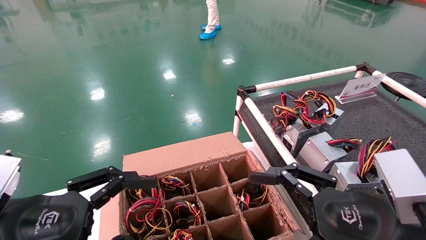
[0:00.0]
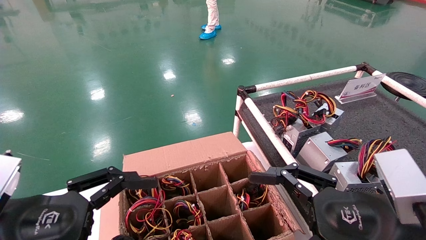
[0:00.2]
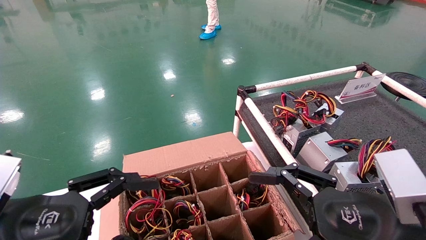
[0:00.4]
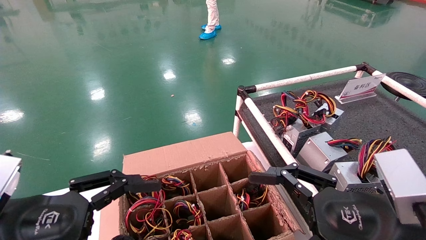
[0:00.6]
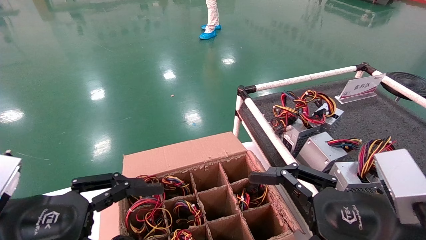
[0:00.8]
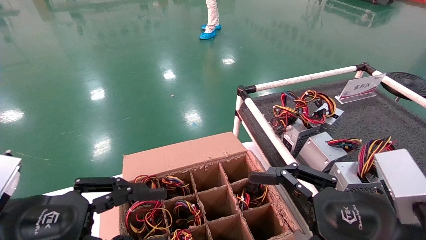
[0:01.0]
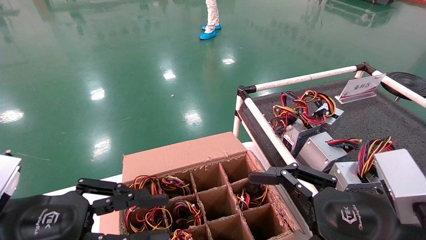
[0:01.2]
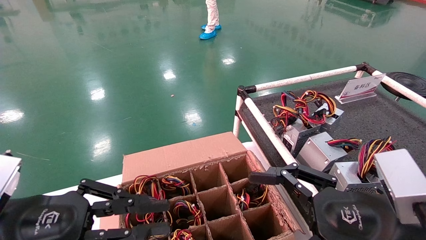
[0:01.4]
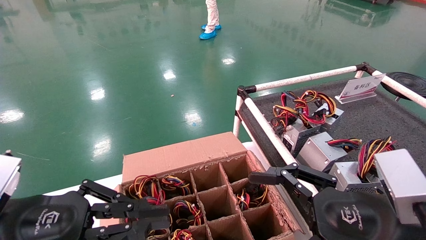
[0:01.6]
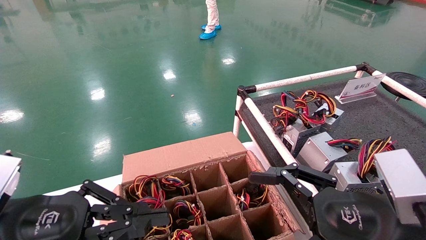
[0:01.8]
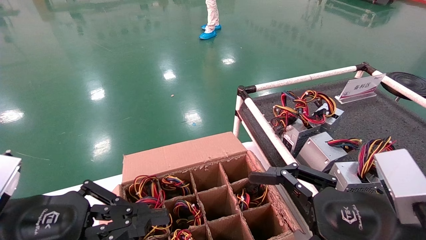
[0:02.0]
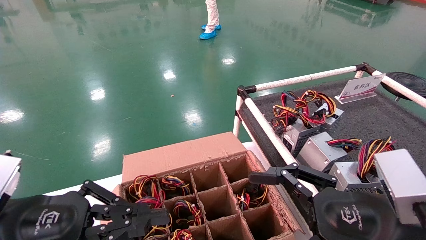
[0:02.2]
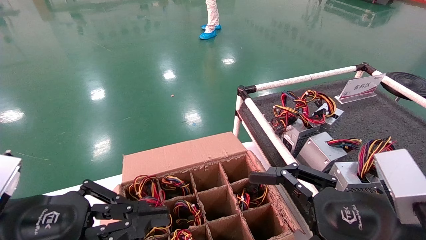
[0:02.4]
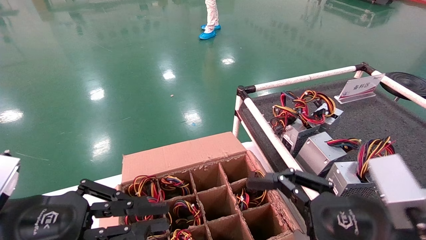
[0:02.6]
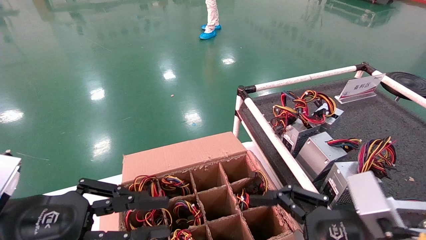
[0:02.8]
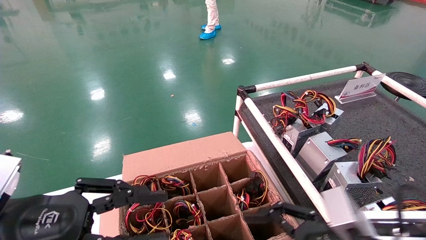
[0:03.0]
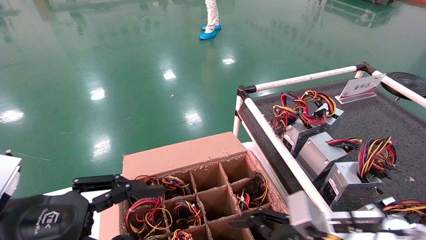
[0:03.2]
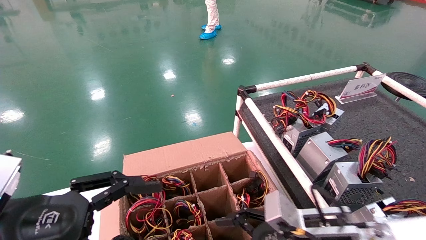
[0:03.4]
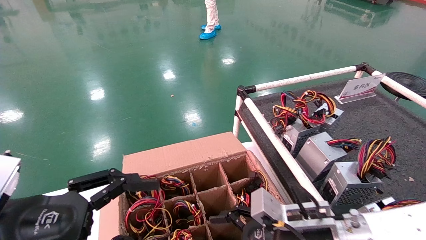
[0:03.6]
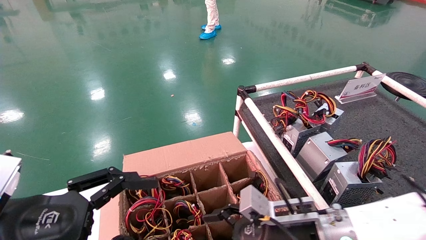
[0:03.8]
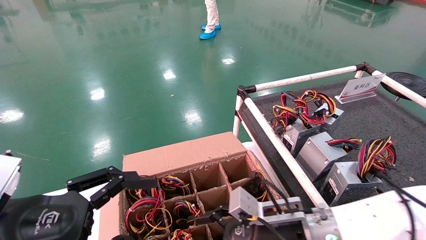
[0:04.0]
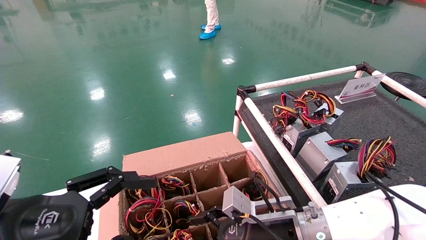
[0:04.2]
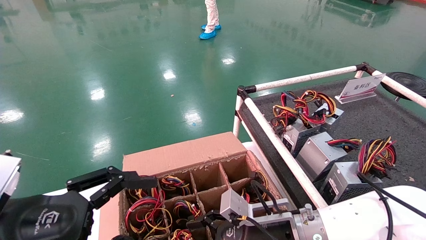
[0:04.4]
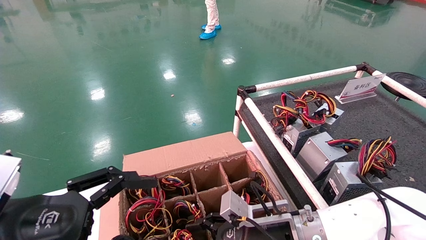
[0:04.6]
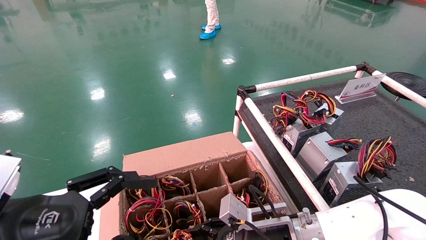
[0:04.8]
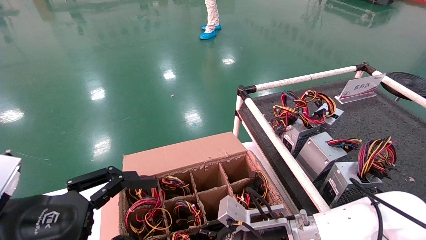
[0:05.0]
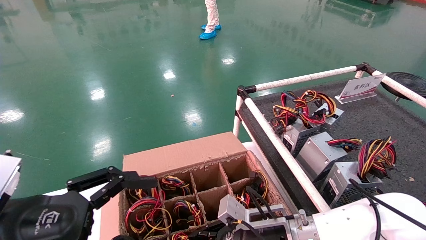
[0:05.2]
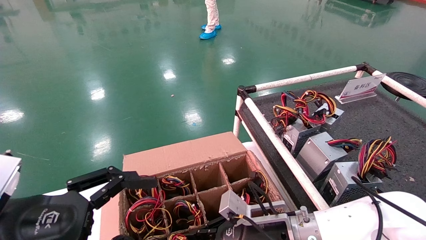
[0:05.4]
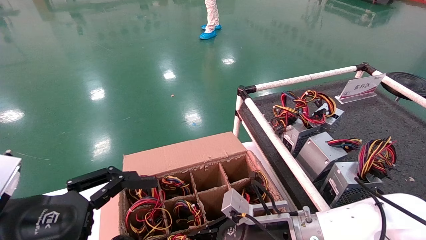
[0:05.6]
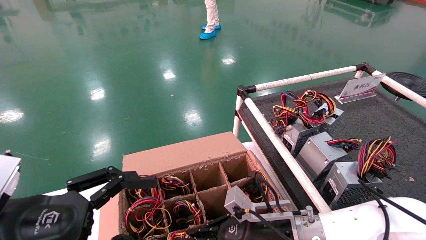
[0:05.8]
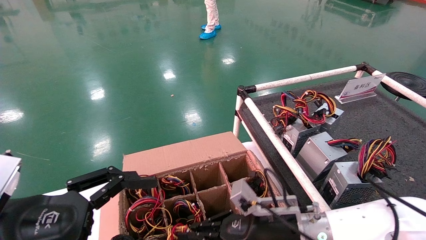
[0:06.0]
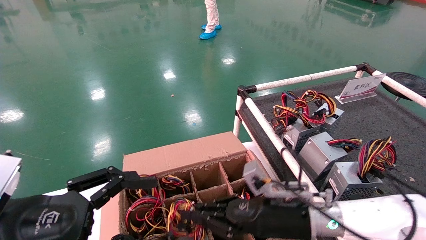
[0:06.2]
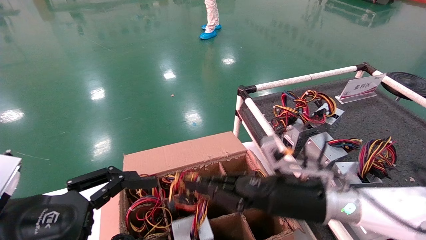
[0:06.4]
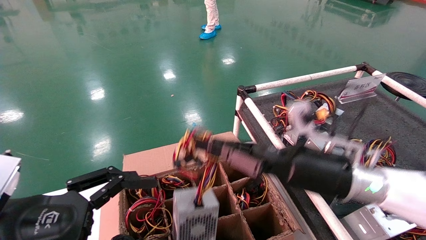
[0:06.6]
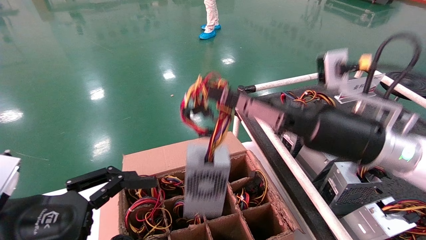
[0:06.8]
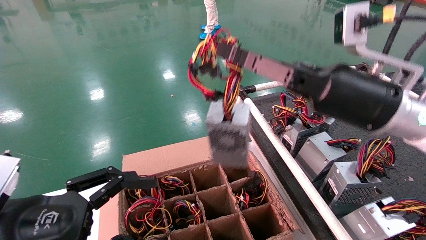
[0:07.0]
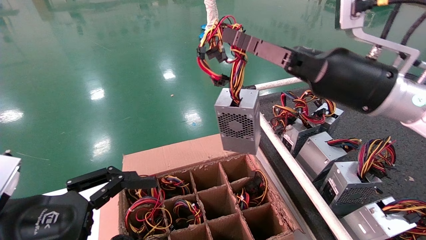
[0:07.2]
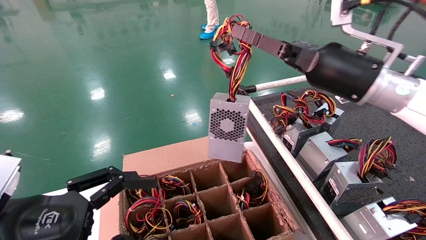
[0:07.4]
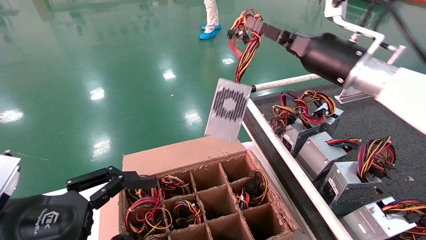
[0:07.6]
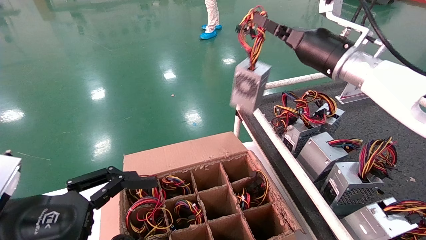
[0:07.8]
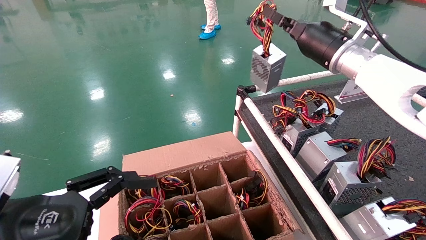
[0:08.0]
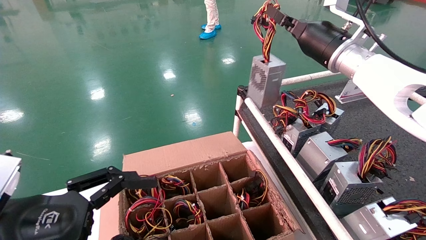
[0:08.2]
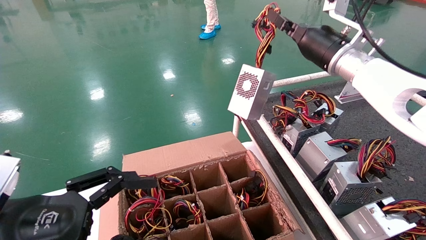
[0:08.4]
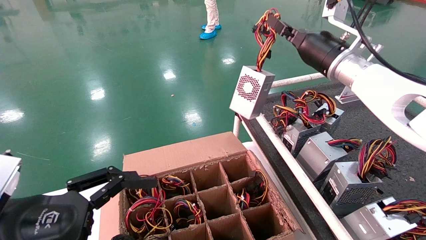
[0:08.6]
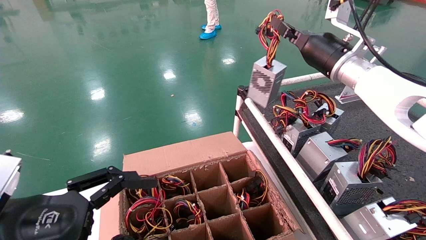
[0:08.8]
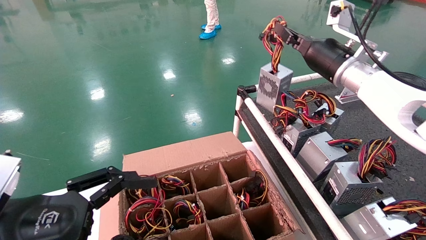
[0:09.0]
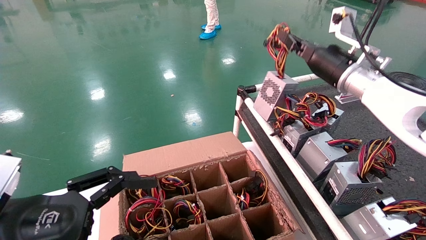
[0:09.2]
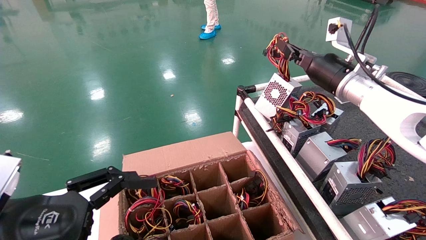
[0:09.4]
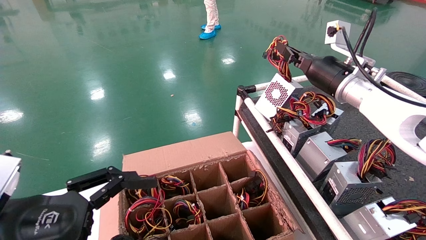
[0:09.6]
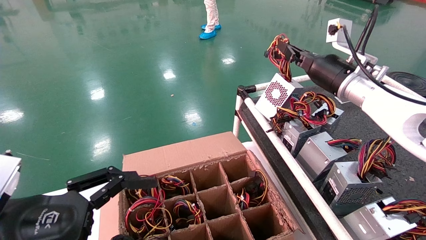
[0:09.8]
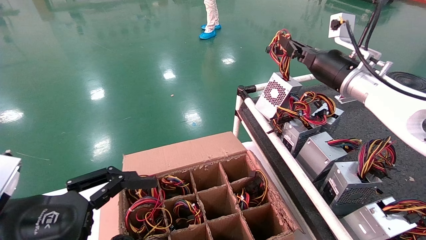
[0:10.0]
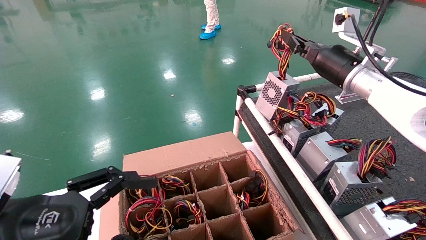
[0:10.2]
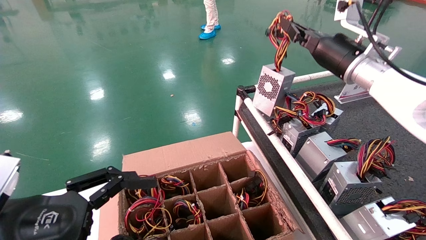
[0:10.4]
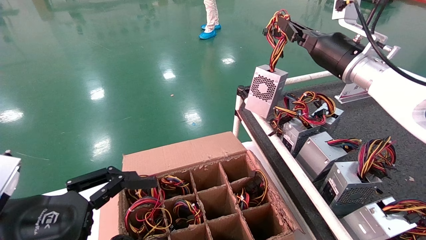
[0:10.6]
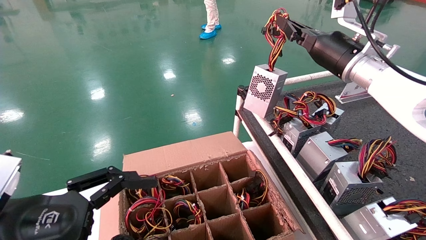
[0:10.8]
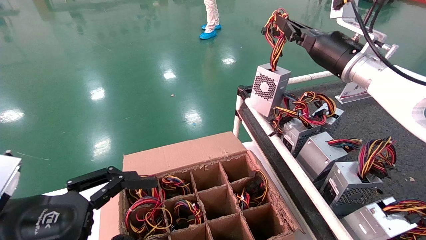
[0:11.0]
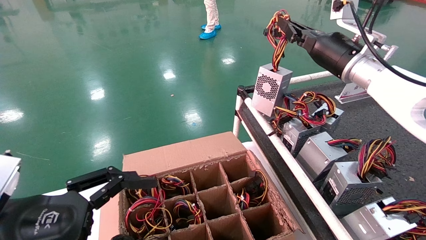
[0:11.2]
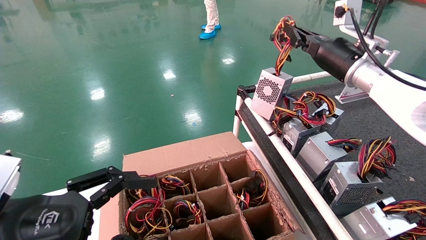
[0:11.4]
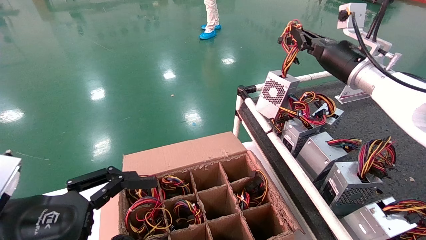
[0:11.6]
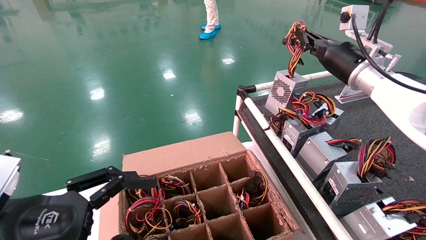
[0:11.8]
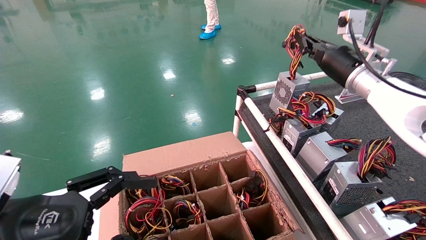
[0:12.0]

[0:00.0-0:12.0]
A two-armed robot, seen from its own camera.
Step, 0:03.2 to 0:05.8: Grab and lift the power supply from the large box.
0:00.0 to 0:01.6: The left gripper closes up.
0:01.6 to 0:03.0: The right gripper goes approximately 5 cm downward.
0:03.0 to 0:04.4: The left gripper opens its fingers, while the right gripper is displaced forward, to the left and downward by approximately 15 cm.
0:04.4 to 0:06.0: The right gripper closes up.
0:06.0 to 0:07.6: The right gripper goes roughly 30 cm upward.
0:07.6 to 0:09.0: The right gripper goes approximately 5 cm forward.
0:09.0 to 0:12.0: There are only small adjustments of the grippers.

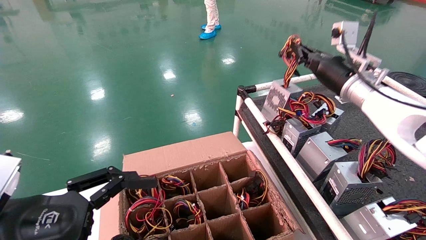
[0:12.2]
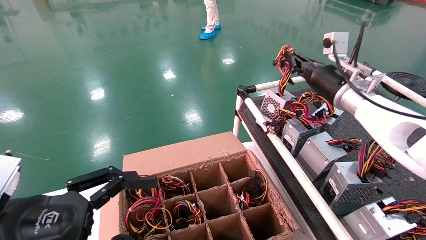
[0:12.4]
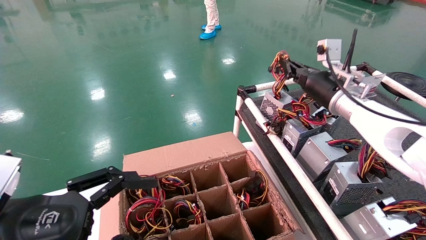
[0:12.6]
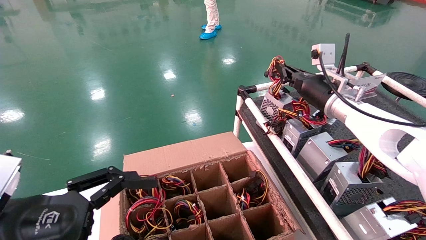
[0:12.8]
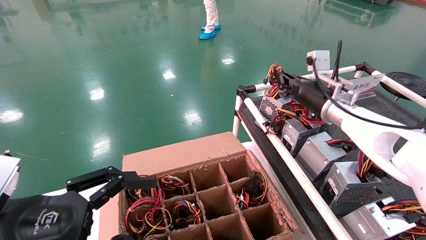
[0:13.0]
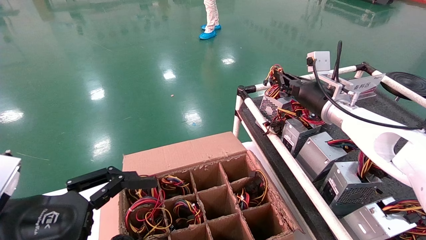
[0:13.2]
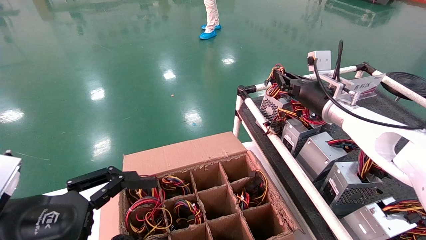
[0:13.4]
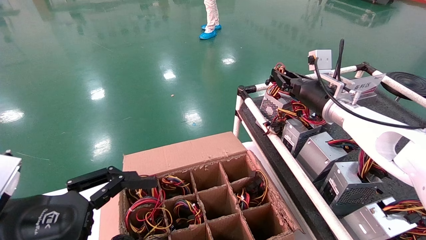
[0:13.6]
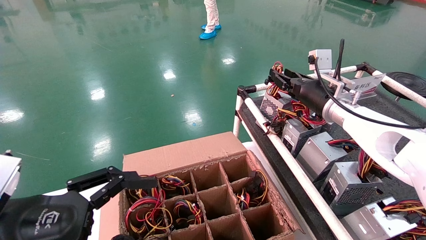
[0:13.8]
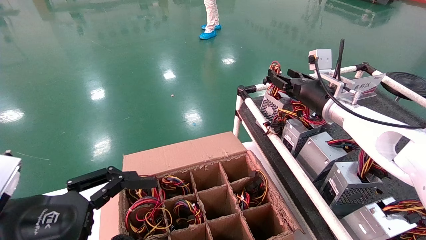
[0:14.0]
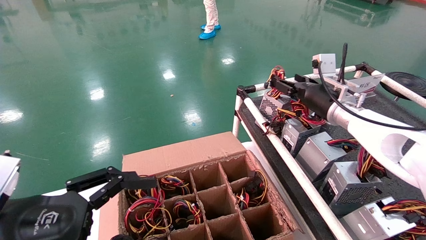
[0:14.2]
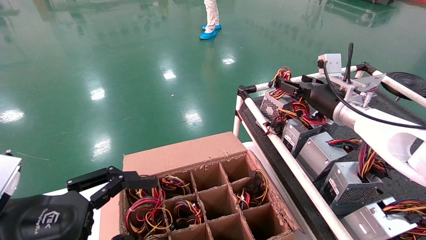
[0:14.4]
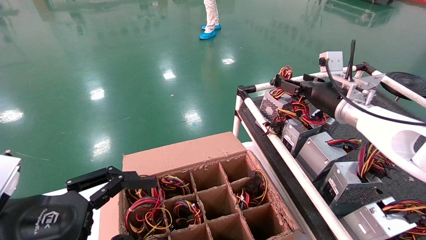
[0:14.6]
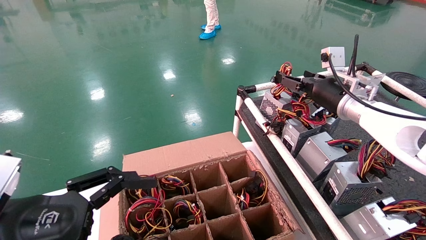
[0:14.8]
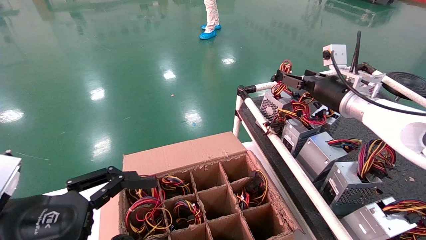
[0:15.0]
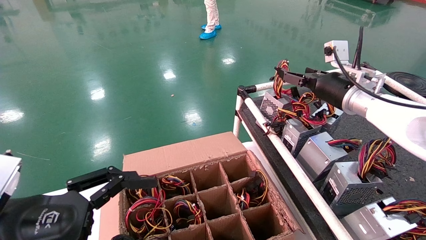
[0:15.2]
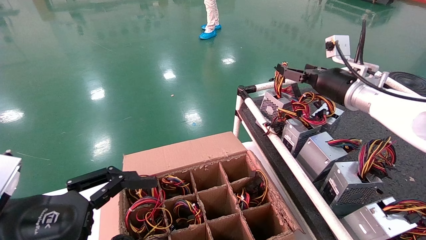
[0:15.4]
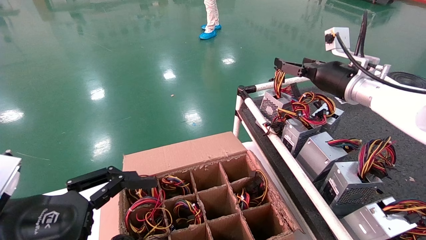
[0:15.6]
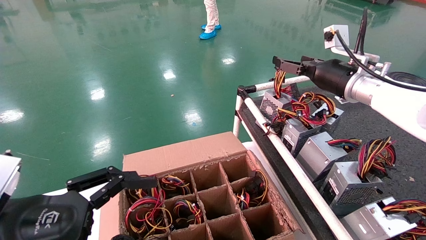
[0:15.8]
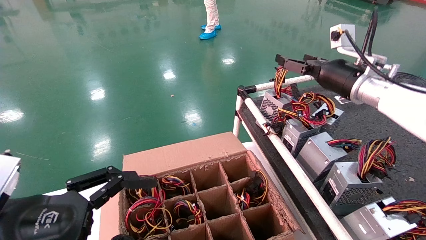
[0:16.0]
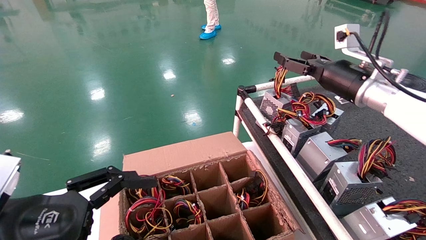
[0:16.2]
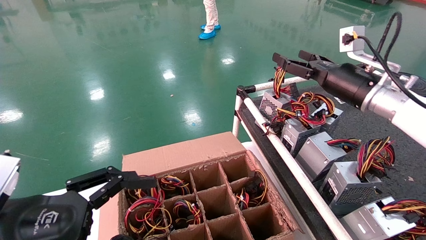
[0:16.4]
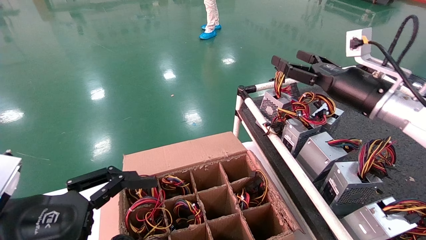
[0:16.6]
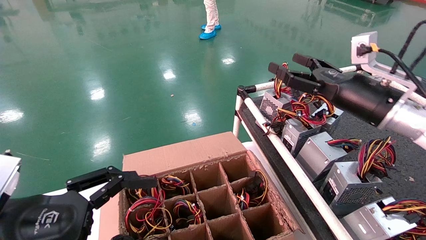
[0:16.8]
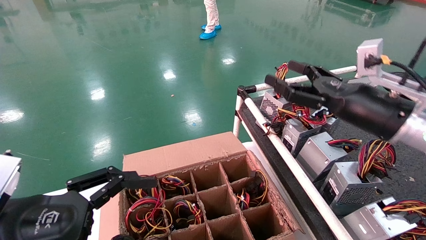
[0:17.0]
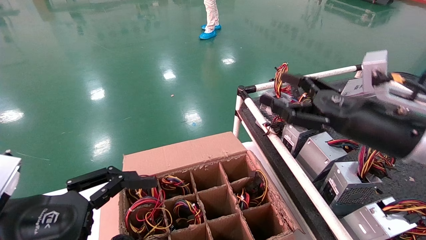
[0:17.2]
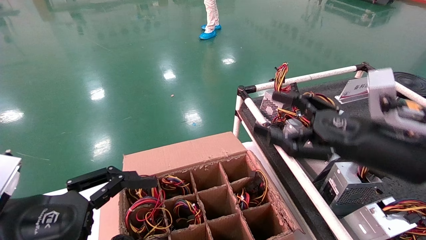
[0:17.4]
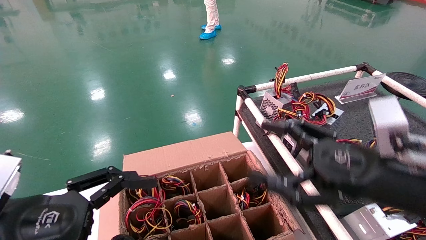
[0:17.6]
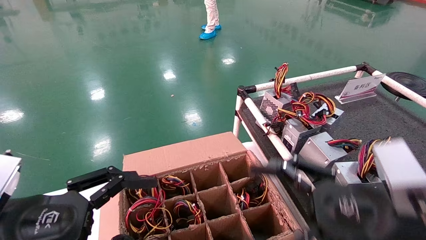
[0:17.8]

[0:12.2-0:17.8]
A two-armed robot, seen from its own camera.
0:12.2 to 0:13.6: The right gripper shifts by roughly 5 cm.
0:13.6 to 0:15.0: The right gripper opens.
0:15.0 to 0:16.4: The right gripper moves backward, roughly 5 cm.
0:16.4 to 0:17.8: The right gripper moves backward and downward, about 20 cm.
